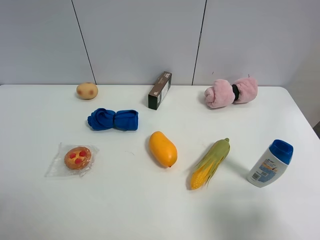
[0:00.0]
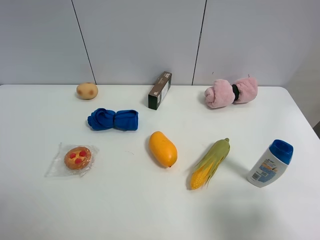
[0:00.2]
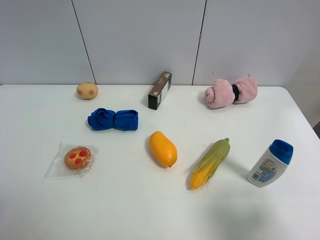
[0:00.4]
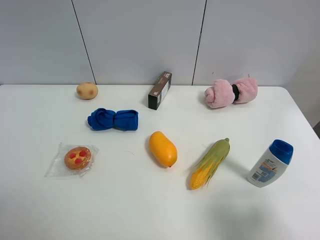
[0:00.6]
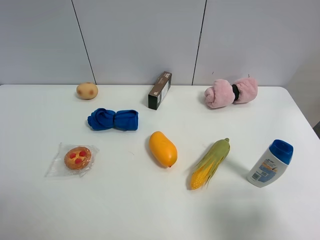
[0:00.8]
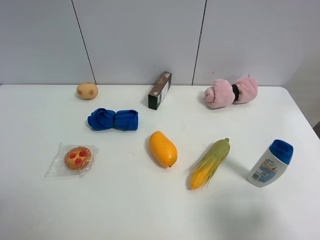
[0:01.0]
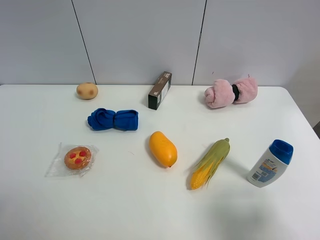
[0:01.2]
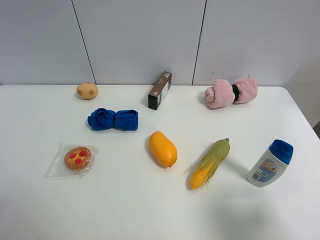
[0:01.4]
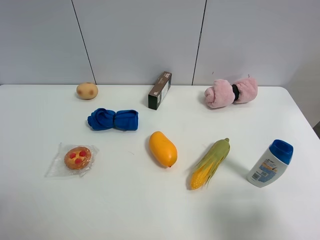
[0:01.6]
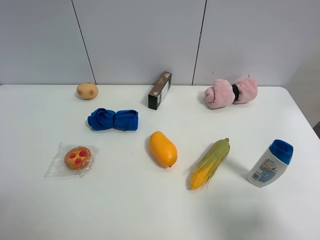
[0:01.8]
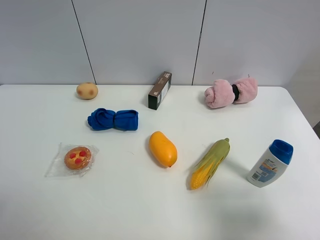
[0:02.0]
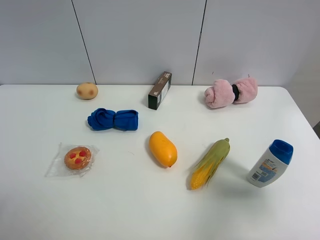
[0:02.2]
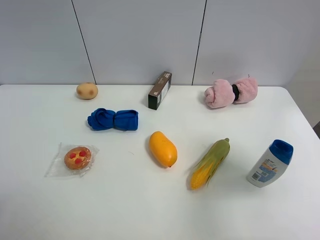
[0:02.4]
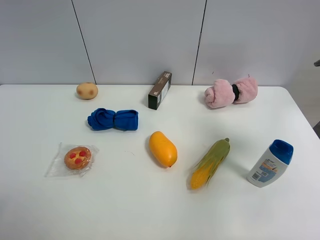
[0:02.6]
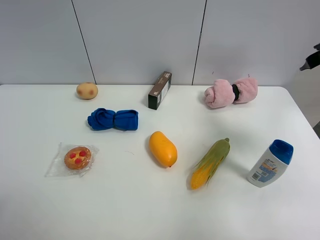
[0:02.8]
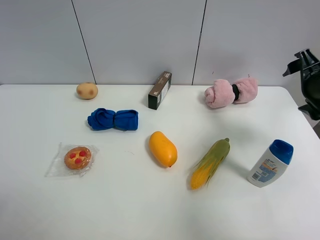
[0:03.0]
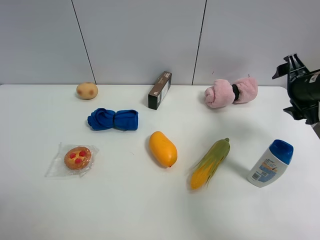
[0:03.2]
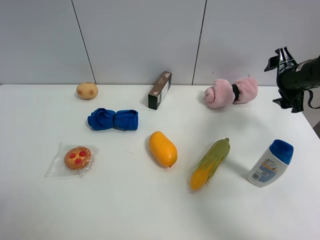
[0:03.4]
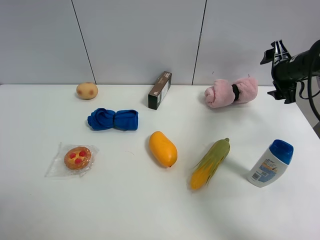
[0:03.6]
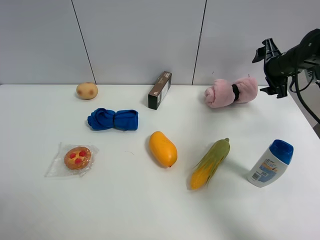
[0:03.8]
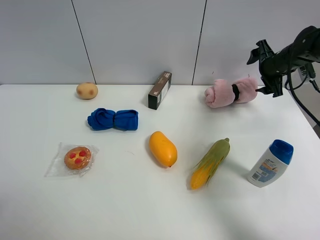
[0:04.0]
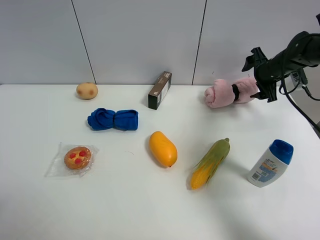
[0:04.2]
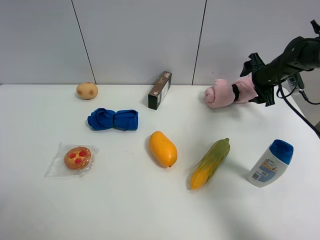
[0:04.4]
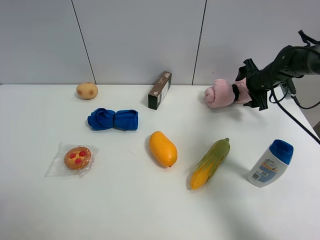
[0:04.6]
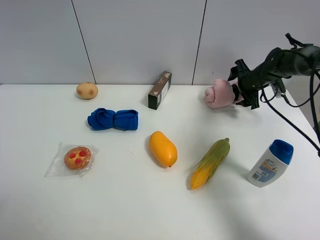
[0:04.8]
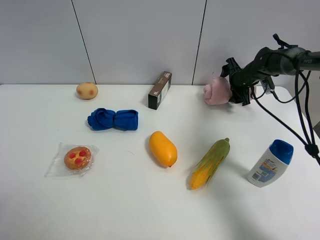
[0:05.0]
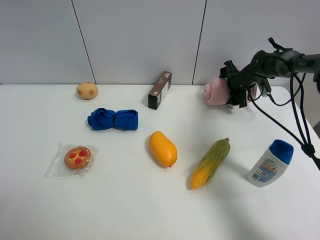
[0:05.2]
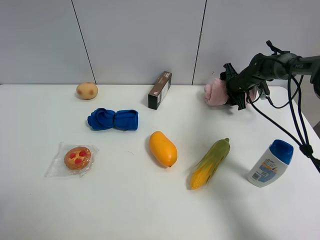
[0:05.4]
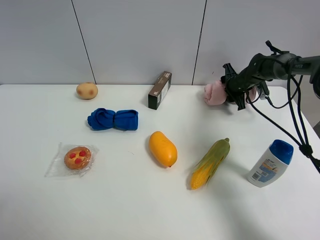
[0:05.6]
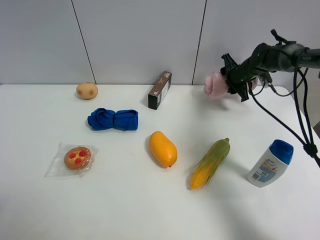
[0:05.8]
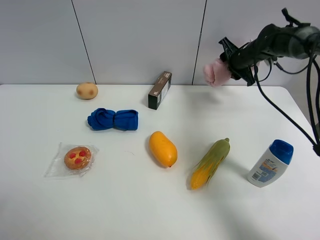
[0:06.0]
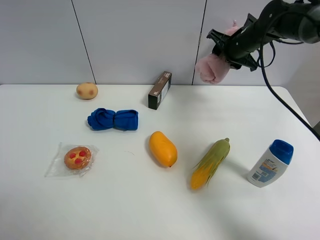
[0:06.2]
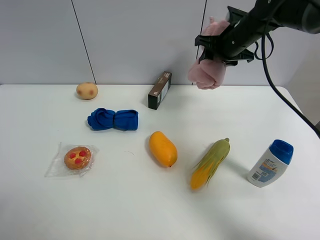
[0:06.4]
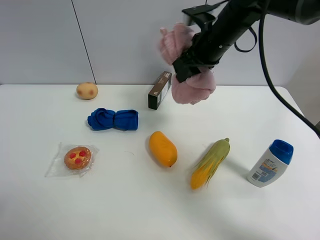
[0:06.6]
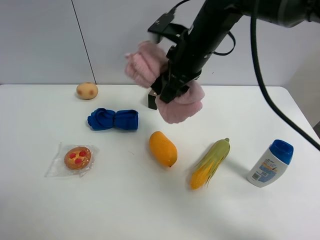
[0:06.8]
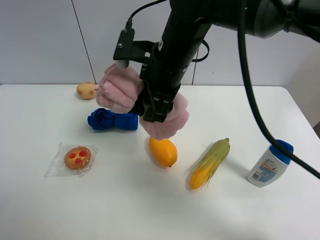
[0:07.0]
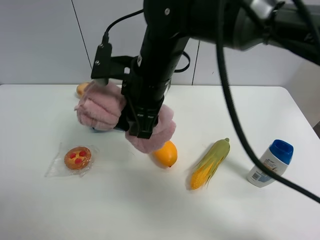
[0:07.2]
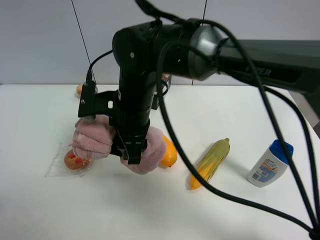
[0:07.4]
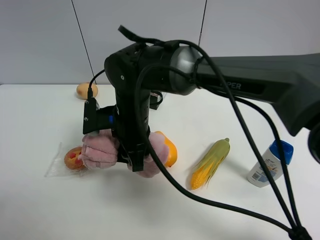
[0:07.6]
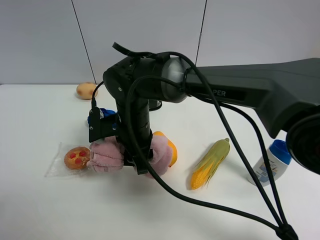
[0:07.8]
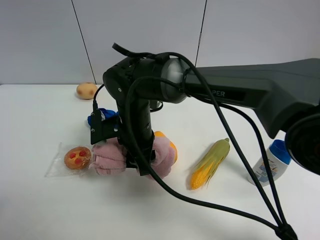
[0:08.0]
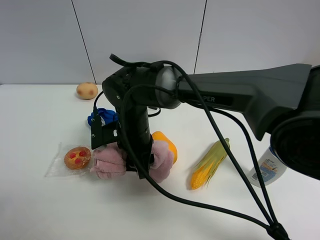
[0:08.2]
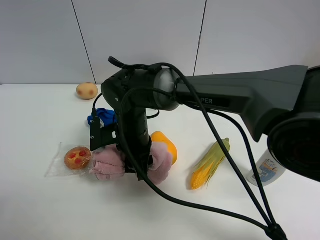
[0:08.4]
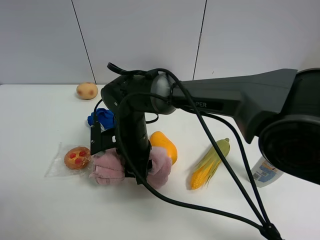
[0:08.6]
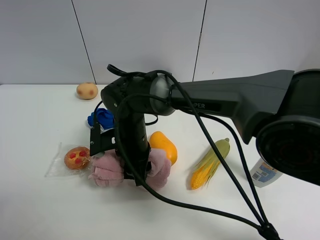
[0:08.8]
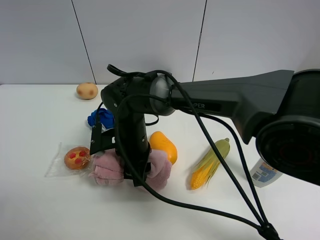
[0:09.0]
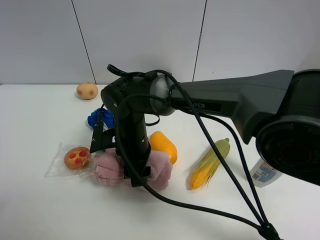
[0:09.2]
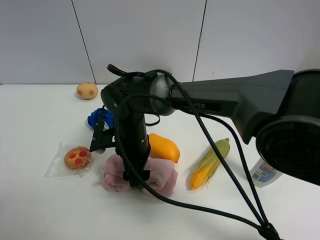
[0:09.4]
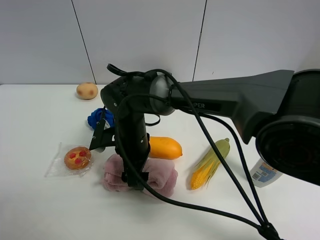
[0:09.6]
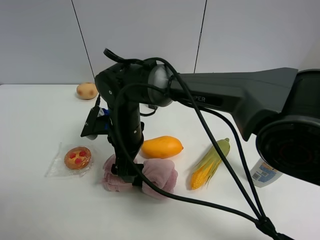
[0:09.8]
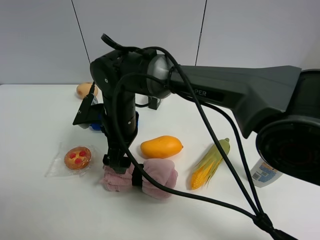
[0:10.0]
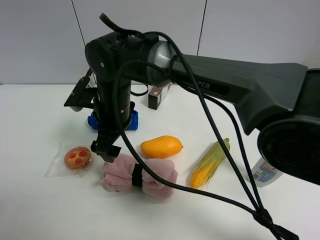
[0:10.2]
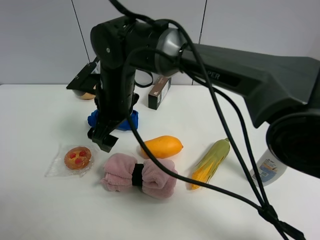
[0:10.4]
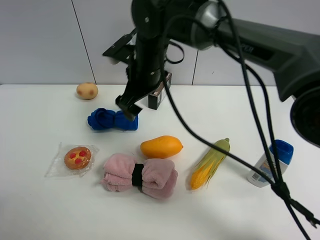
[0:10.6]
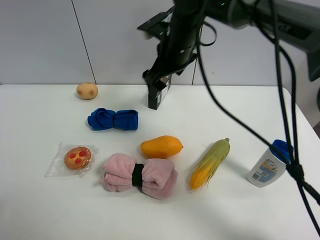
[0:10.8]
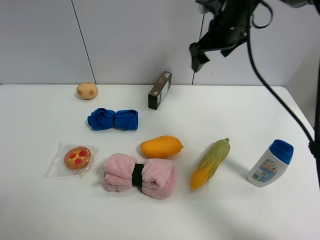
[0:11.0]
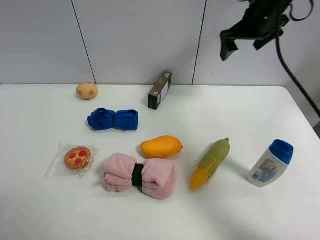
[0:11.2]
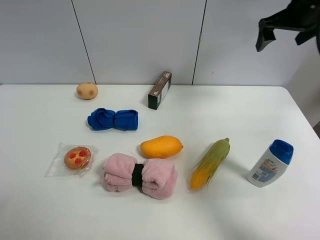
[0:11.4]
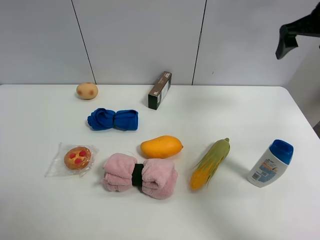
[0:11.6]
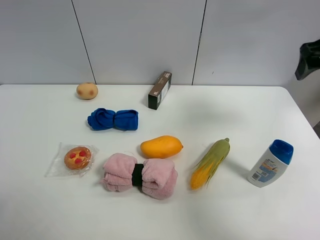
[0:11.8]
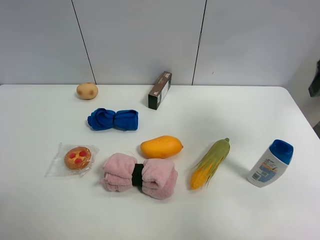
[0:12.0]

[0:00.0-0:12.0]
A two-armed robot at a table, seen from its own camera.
Task of the whole recording: the gripper move the object.
Step, 0.0 to 5.6 s: Grasp the pink towel with the right gripper.
Step, 5.8 to 9.8 s: Place the pink towel on the table with the right gripper.
0.0 to 1.6 s: Both grippers stay about where they are.
1.6 to 3.0 s: The right gripper heads forward, covering approximately 30 cm.
3.0 to 4.4 s: The right gripper shifts approximately 20 cm forward and downward.
4.4 to 6.0 s: The right gripper travels to the left by about 5 cm, and closes its fingers.
6.0 to 7.6 s: The right gripper is displaced to the left and backward by roughly 40 cm.
7.6 to 9.0 s: The right gripper goes about 5 cm downward.
9.0 to 10.4 s: The right gripper moves upward, some 10 cm, and opens its fingers.
10.4 to 12.0 s: The right gripper heads to the right, covering about 40 cm.

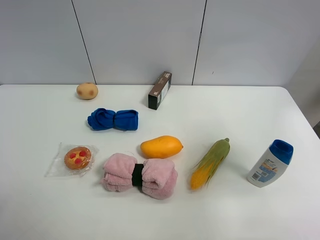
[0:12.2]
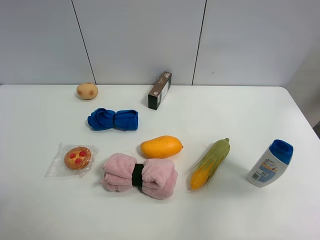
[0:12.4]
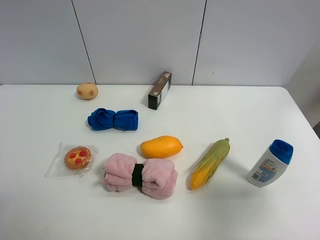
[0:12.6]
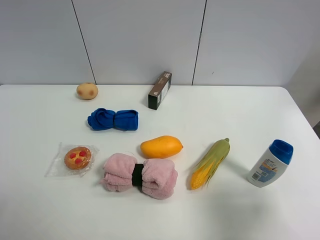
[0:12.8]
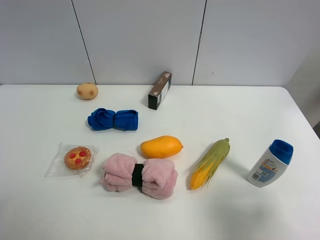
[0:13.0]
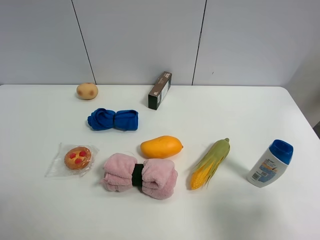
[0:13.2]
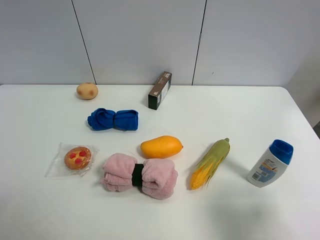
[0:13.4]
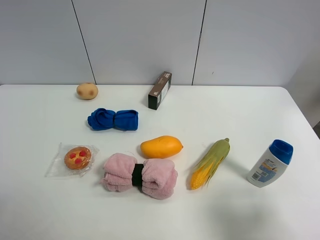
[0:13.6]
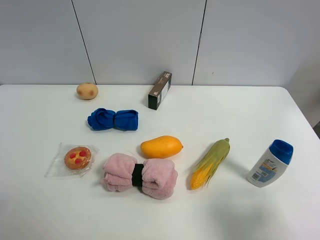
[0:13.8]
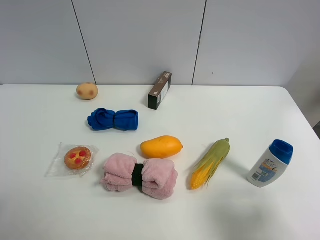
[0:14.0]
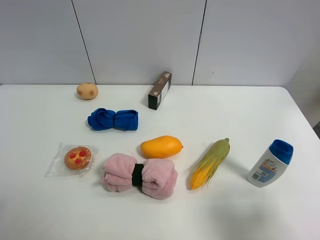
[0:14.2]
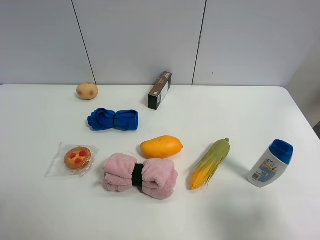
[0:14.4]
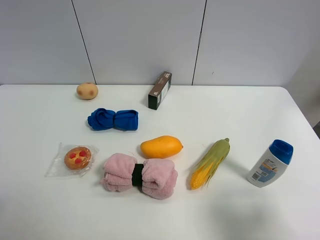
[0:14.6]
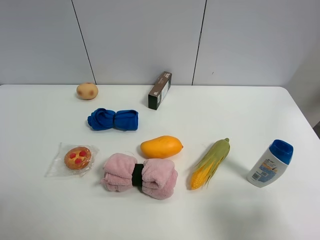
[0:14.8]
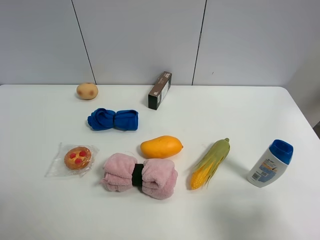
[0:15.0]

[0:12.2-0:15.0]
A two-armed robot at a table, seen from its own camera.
Task of the whole recording: the gripper move the object.
12.2 to 13.6 s: The right gripper goes about 15 cm backward and downward.
13.6 to 15.0 s: Neither gripper changes place.

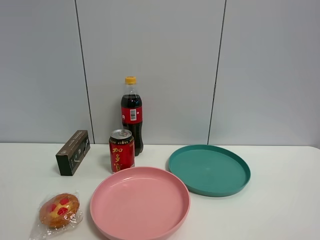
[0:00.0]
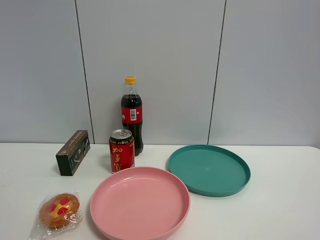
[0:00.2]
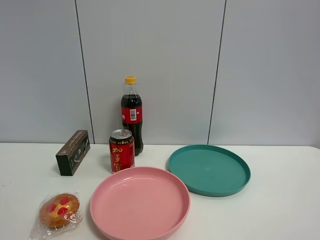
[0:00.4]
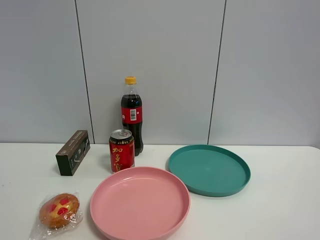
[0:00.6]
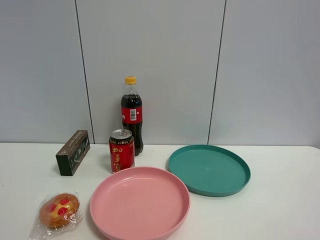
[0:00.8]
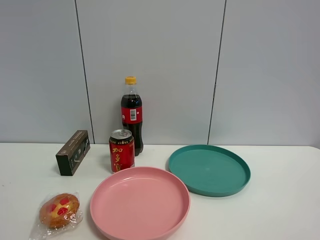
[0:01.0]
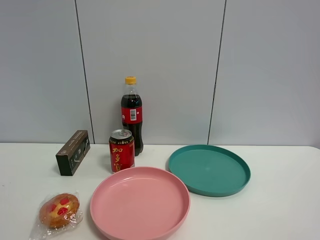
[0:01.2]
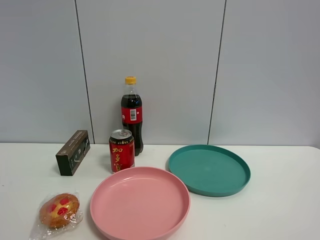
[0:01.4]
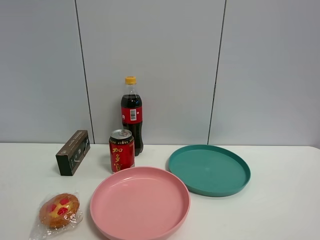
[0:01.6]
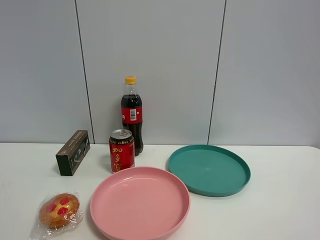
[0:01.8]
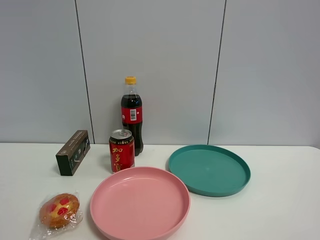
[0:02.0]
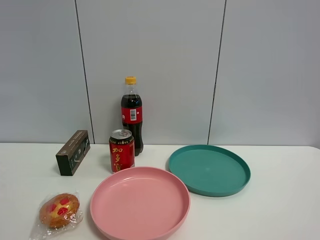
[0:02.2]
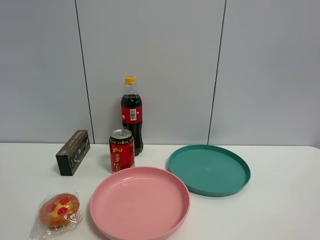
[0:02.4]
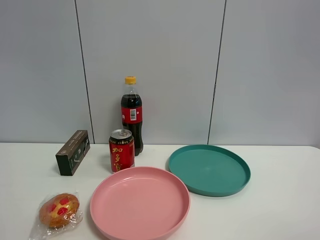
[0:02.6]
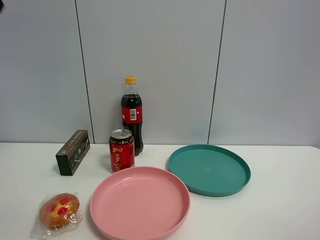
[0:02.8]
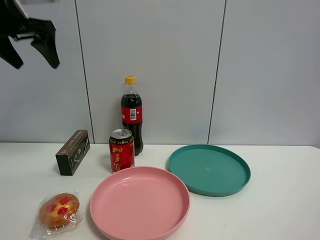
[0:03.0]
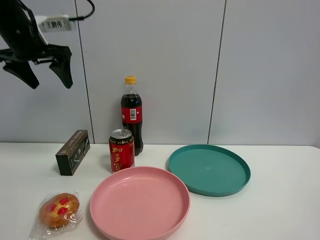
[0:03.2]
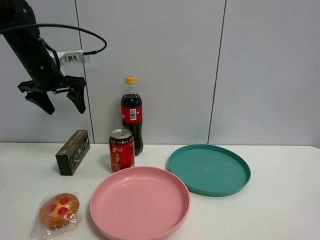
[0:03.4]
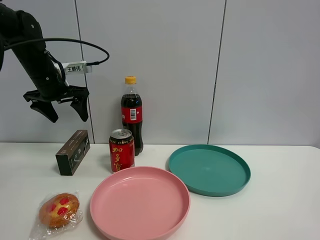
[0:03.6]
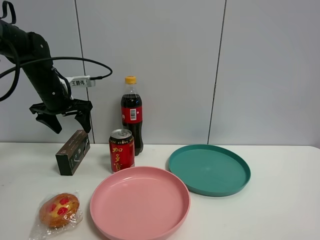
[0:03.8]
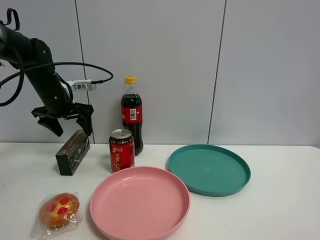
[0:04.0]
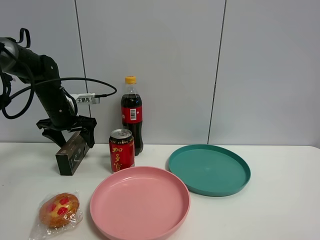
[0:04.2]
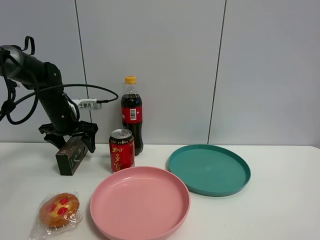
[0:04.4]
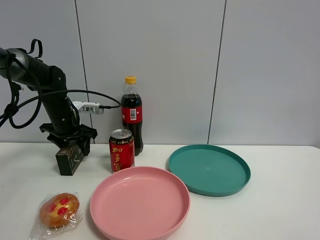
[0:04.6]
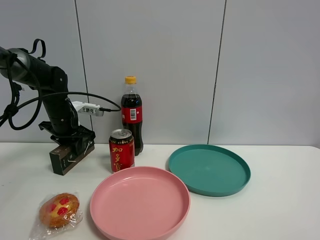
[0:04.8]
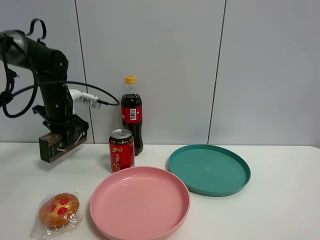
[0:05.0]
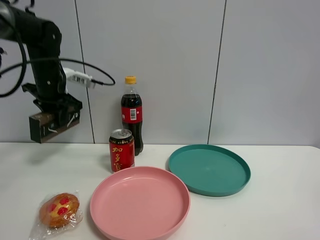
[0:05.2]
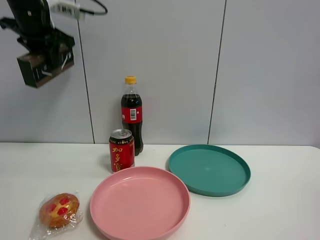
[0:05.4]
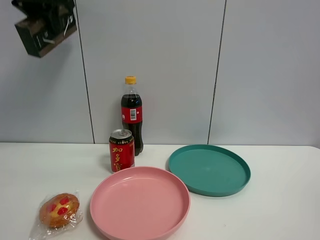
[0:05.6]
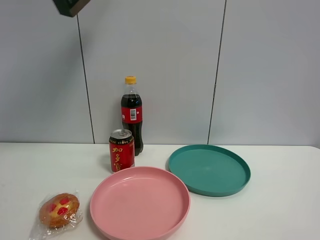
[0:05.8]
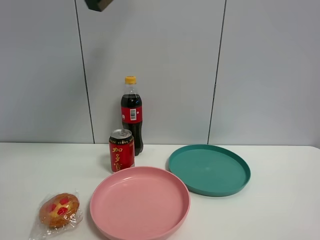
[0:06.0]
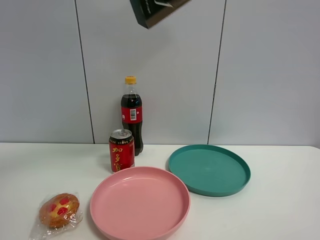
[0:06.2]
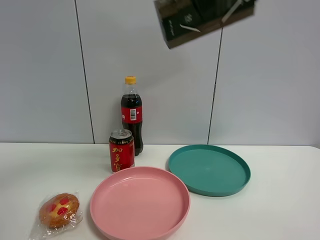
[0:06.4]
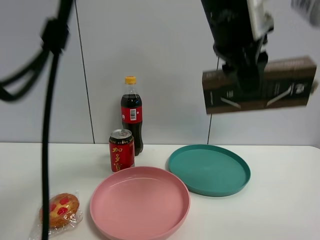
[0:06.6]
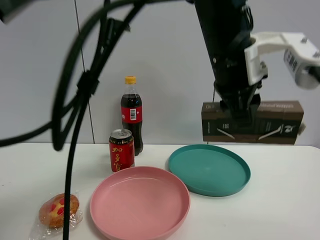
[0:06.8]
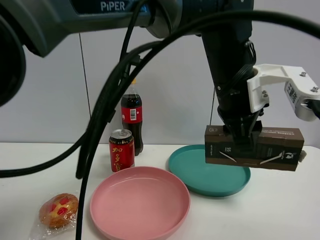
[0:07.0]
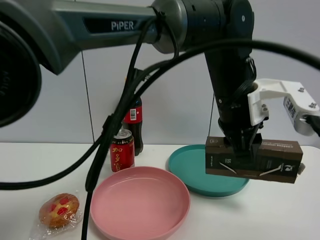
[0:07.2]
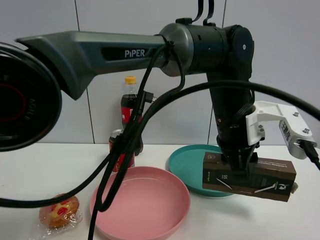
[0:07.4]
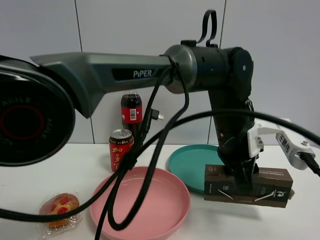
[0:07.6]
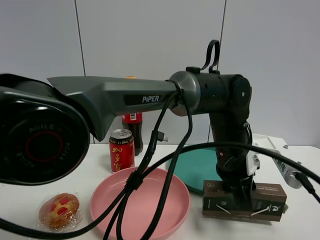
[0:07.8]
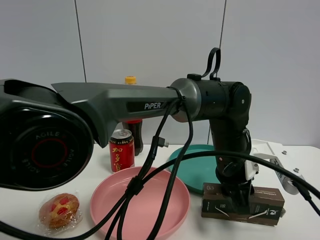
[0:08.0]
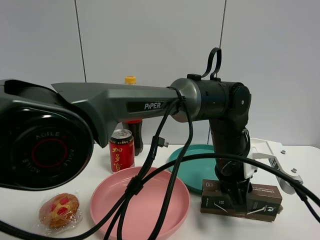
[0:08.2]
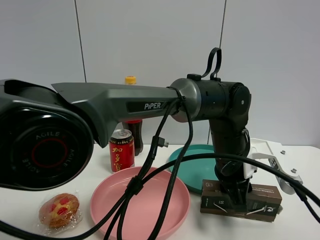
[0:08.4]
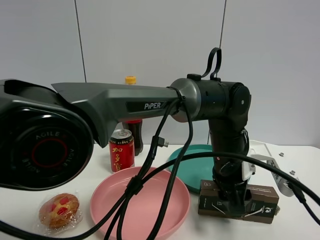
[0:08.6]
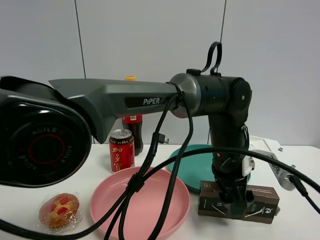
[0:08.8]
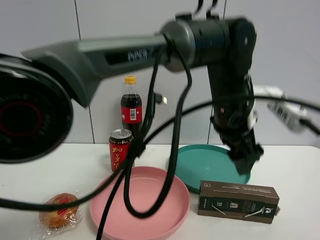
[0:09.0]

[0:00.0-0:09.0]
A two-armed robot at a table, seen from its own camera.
Task of the whole recording: the gripper move the object.
Step, 0.0 to 4.8 s: Grasp the brown box with the left gripper.
Step, 5.0 to 8.8 s: Place the brown box on the table with the left gripper.
0.0 to 1.6 s: Neither gripper changes place.
1.6 to 3.0 s: The left gripper goes some 40 cm forward.
3.0 to 4.4 s: The left gripper goes approximately 20 cm downward.
4.4 to 6.0 s: The left gripper travels upward, to the right and backward by approximately 40 cm, and closes.
6.0 to 7.6 s: The left gripper travels downward and to the right by approximately 40 cm.
7.6 to 9.0 s: The left gripper is displaced upward by roughly 5 cm, and opens its fingers.
